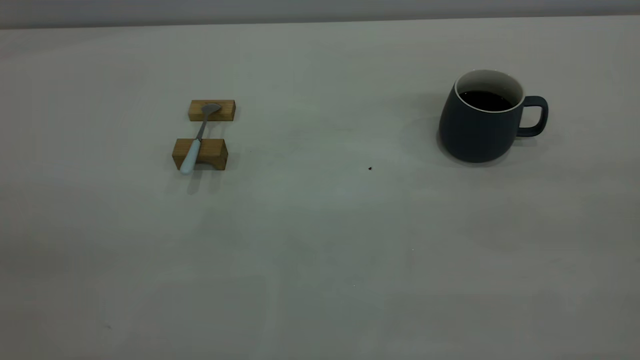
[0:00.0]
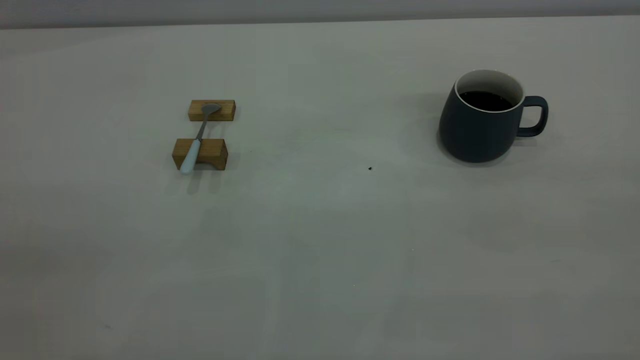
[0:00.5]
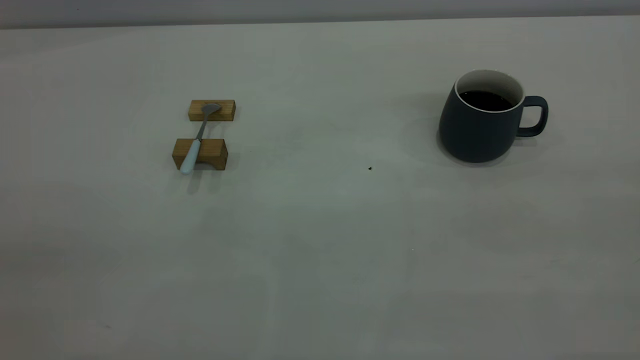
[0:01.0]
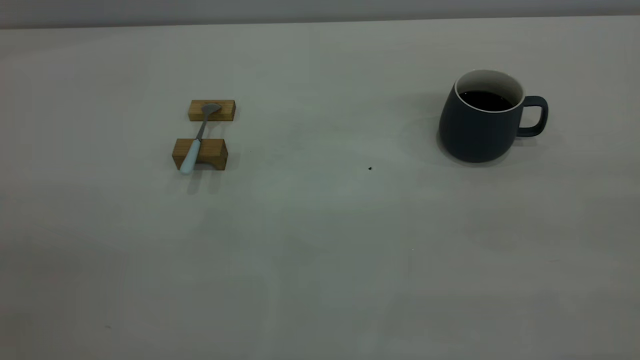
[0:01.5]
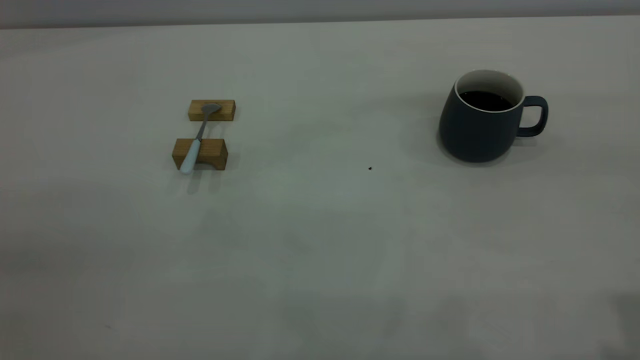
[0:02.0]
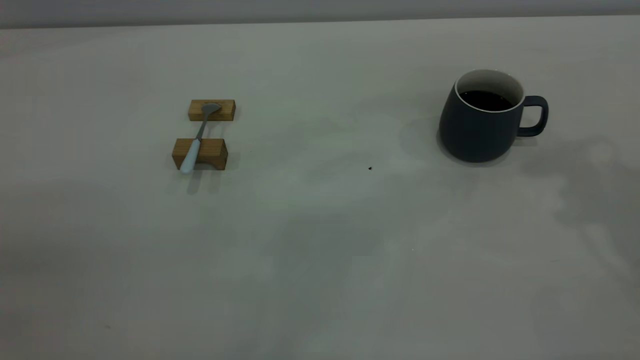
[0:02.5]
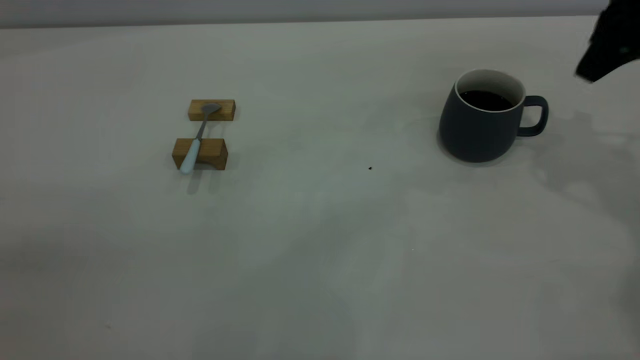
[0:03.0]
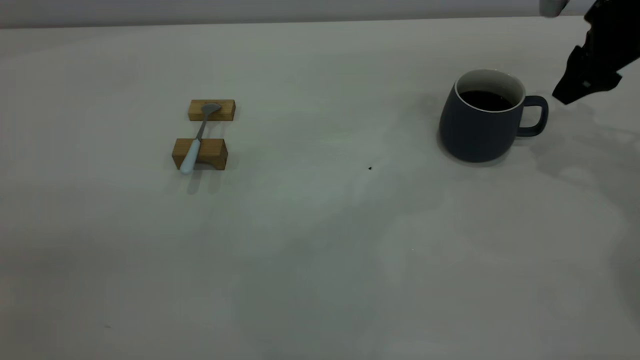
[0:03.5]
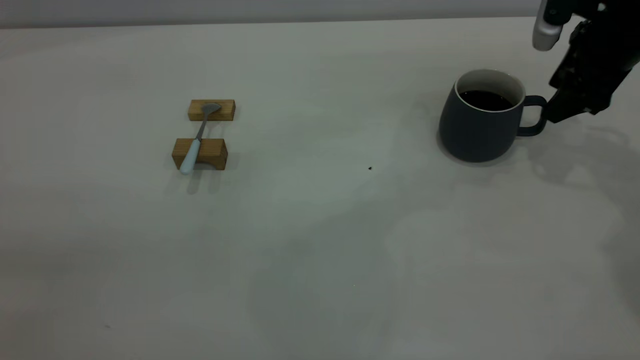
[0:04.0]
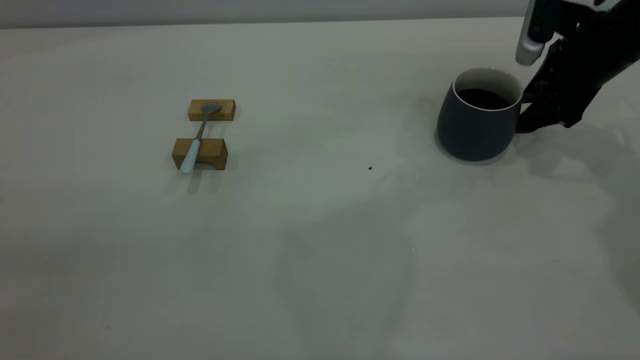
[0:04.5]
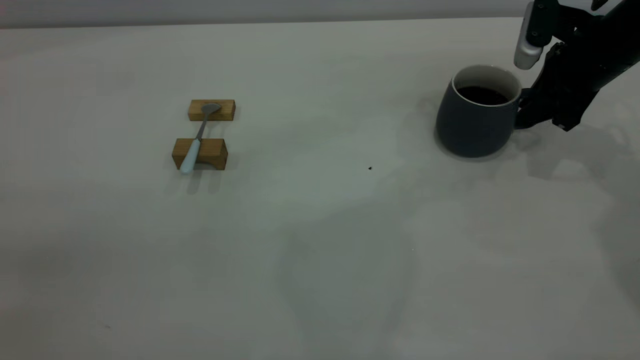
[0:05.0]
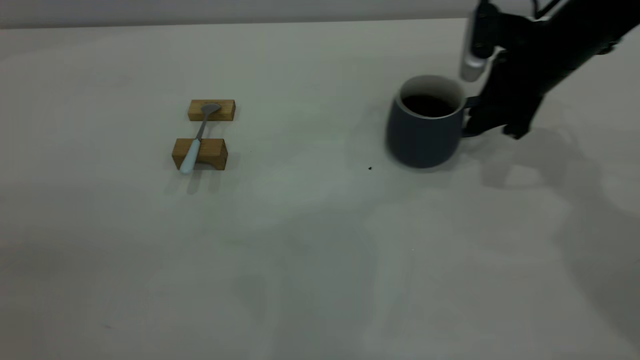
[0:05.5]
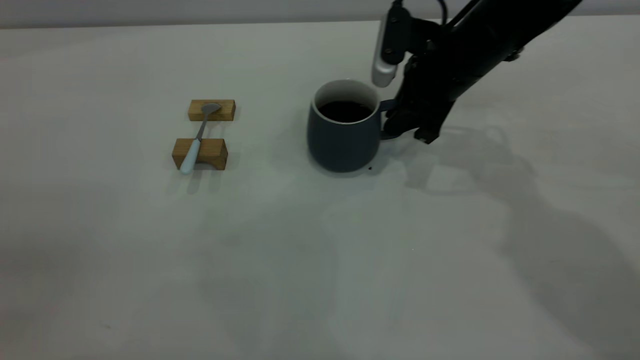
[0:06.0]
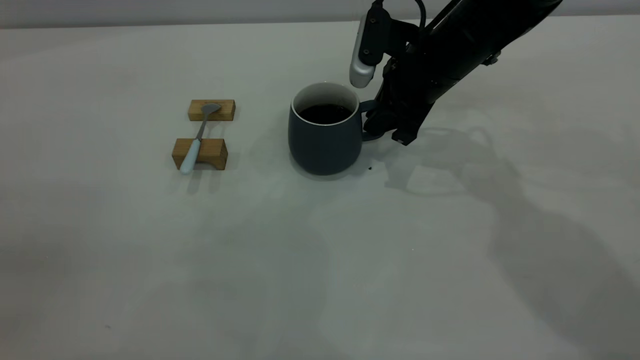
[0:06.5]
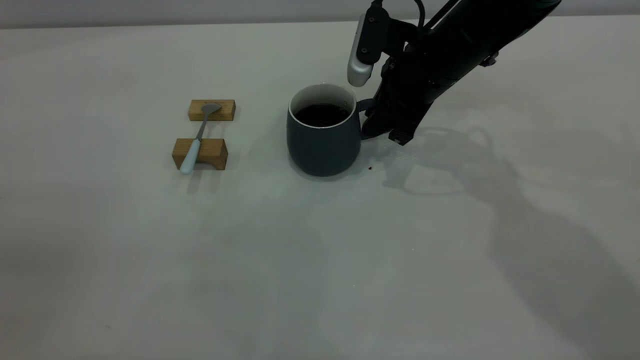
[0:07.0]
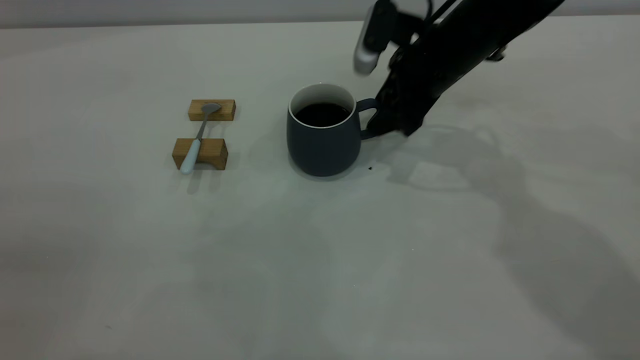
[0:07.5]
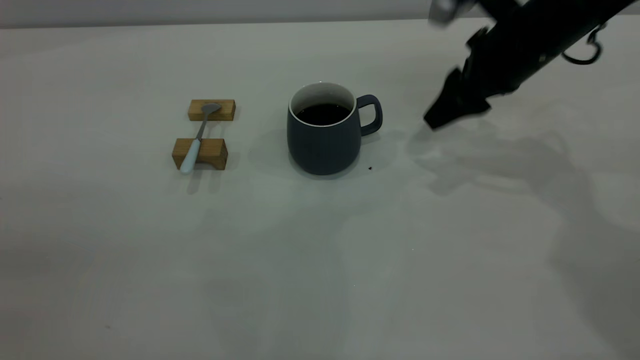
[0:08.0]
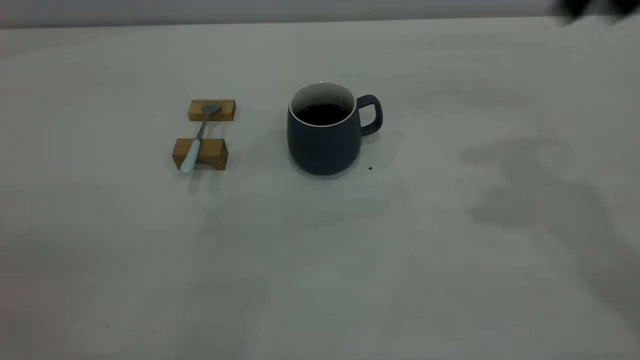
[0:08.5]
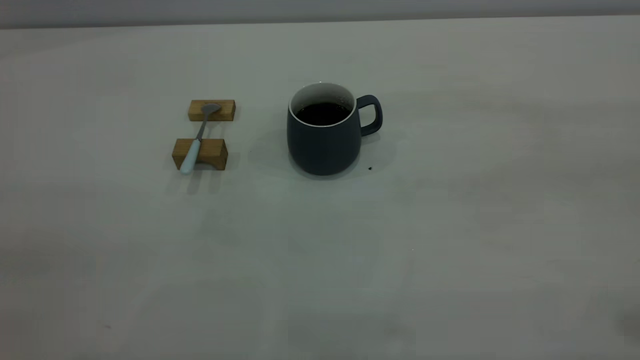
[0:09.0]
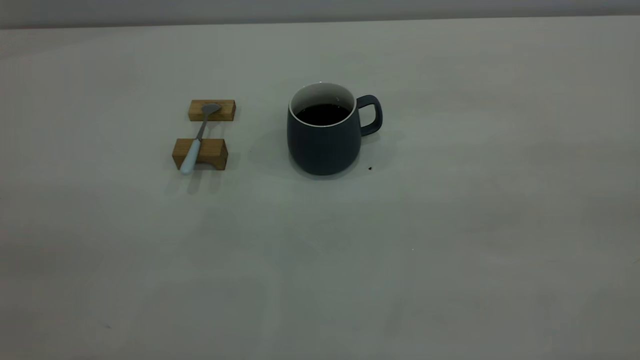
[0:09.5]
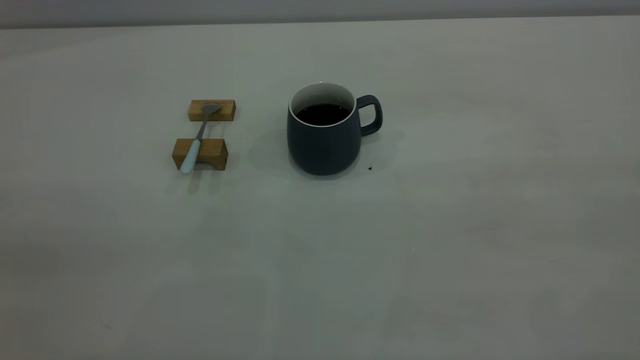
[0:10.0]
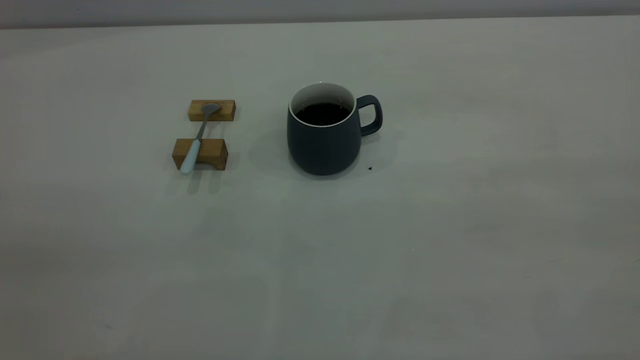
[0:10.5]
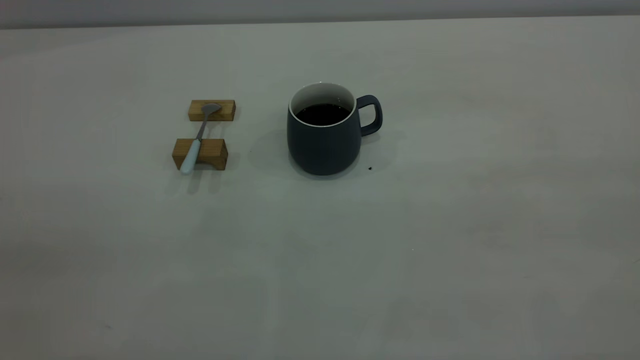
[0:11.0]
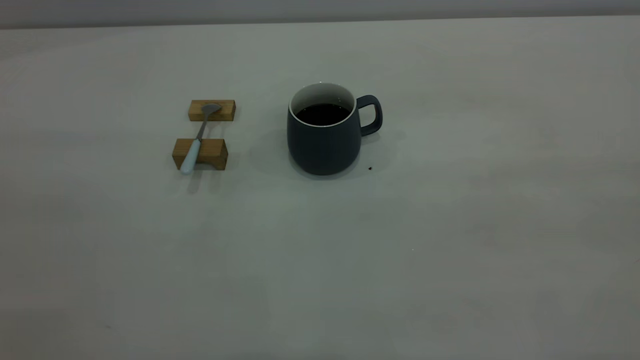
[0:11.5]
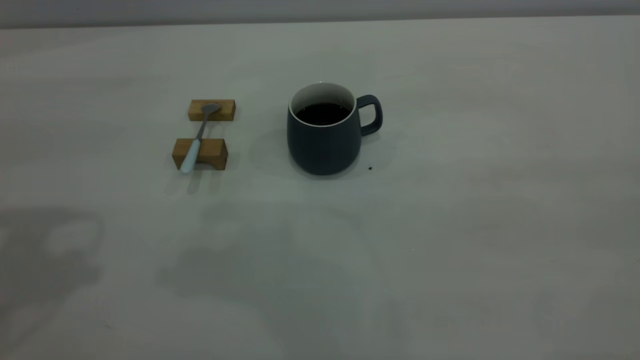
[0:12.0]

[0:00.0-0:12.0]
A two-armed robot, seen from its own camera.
Step, 0:00.0 to 0:07.5: Move the cup with coffee to the center of view.
0:02.0 to 0:04.0: The right gripper shifts roughly 35 cm forward and downward.
0:04.0 to 0:06.0: The right gripper heads to the left, covering about 15 cm, and closes up.
0:06.0 to 0:08.0: The right gripper goes about 5 cm to the right, and opens.
0:08.0 to 0:10.0: The right gripper moves backward and upward, roughly 50 cm.

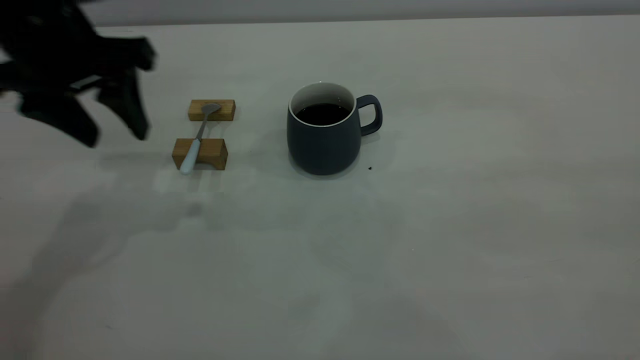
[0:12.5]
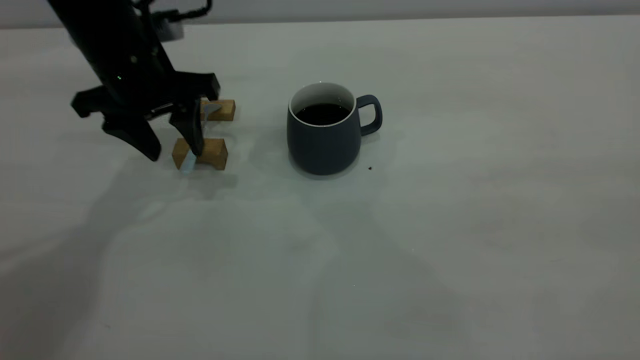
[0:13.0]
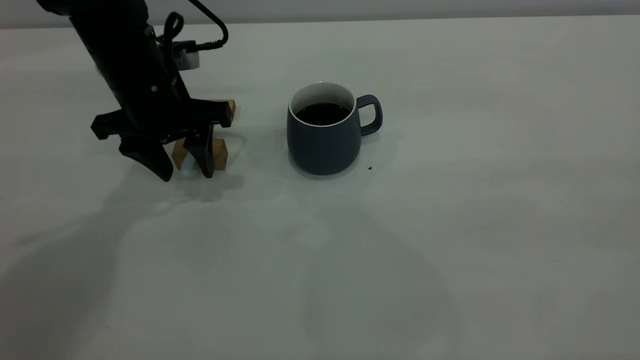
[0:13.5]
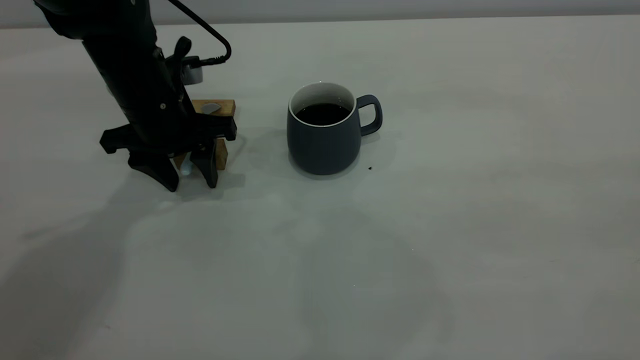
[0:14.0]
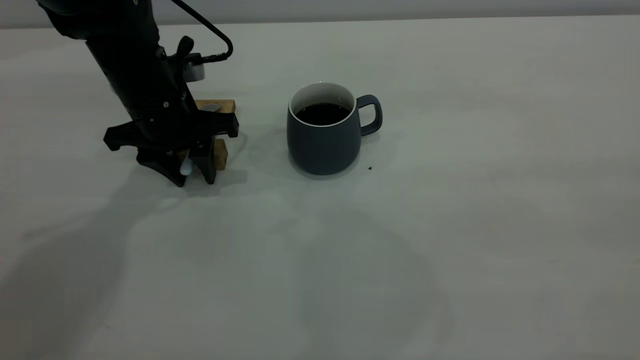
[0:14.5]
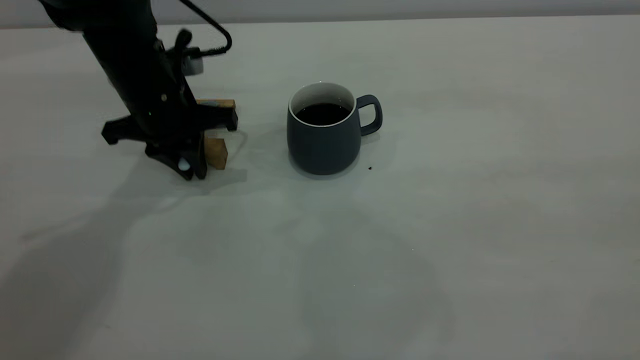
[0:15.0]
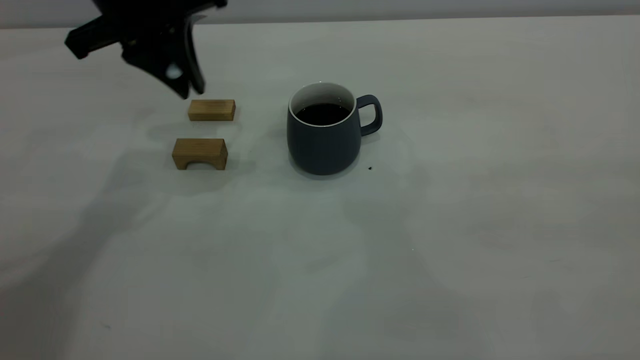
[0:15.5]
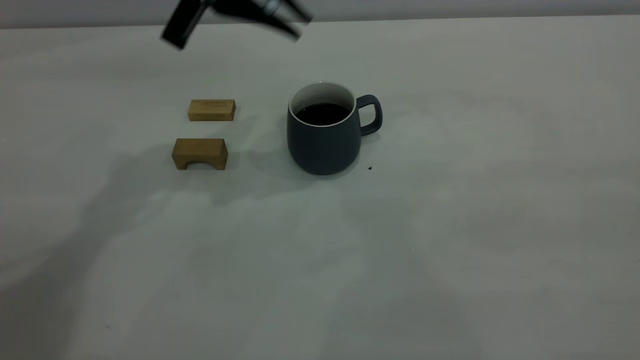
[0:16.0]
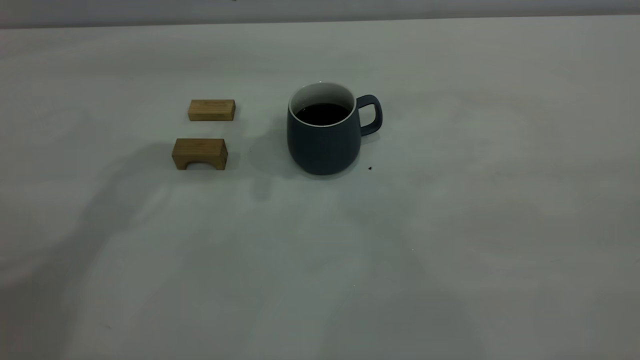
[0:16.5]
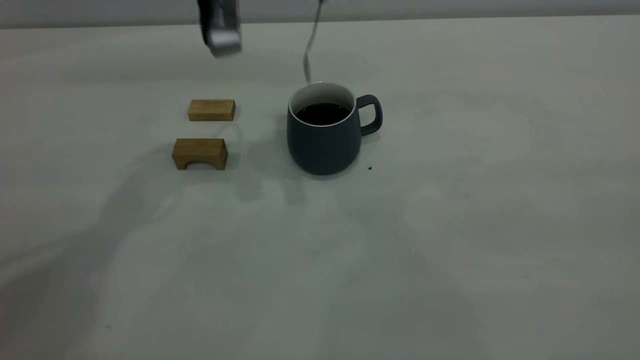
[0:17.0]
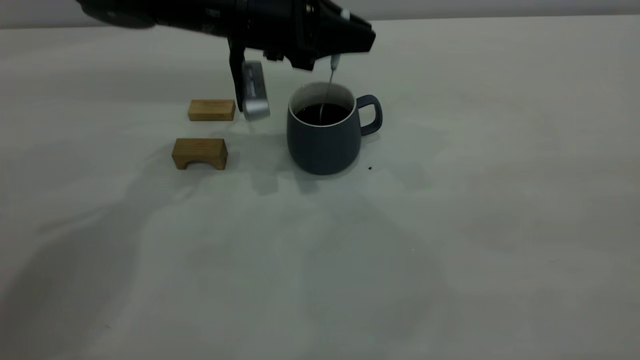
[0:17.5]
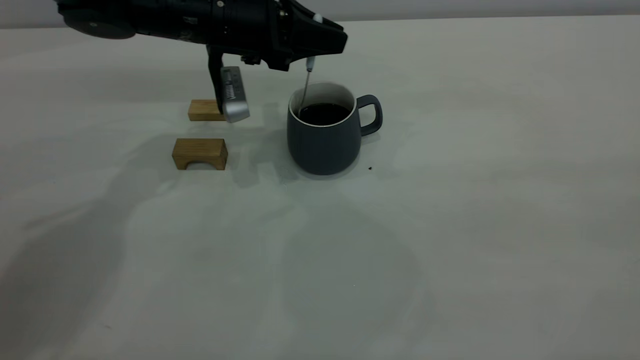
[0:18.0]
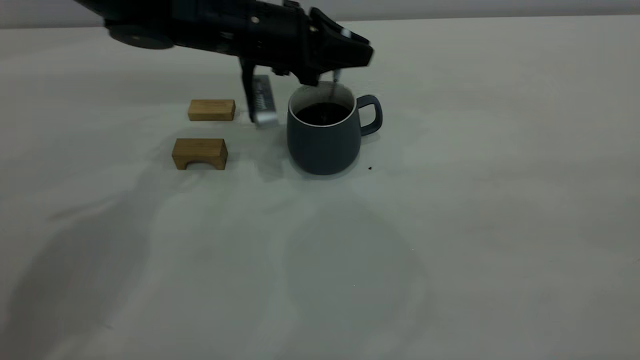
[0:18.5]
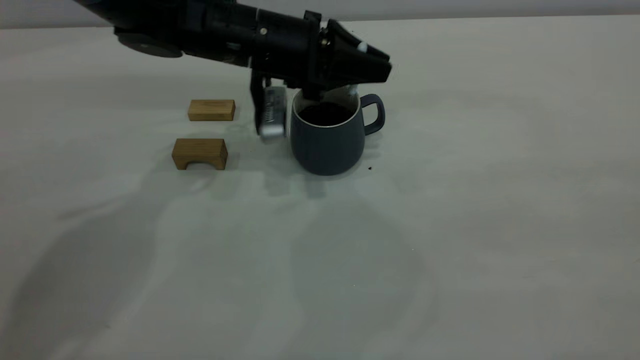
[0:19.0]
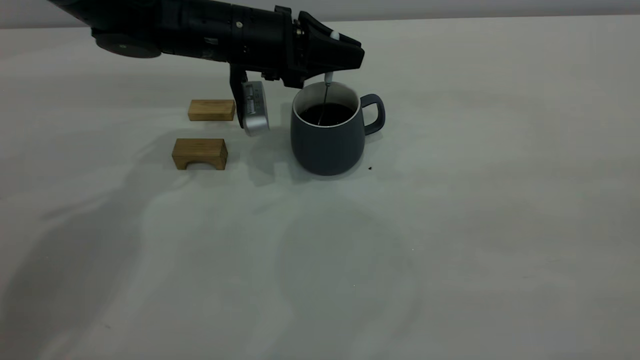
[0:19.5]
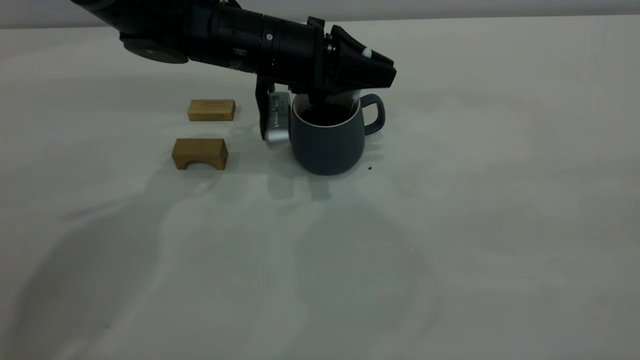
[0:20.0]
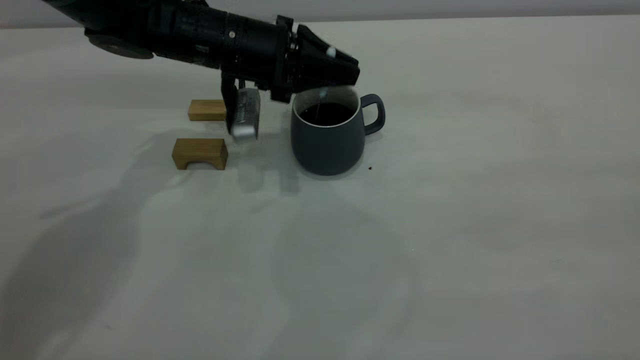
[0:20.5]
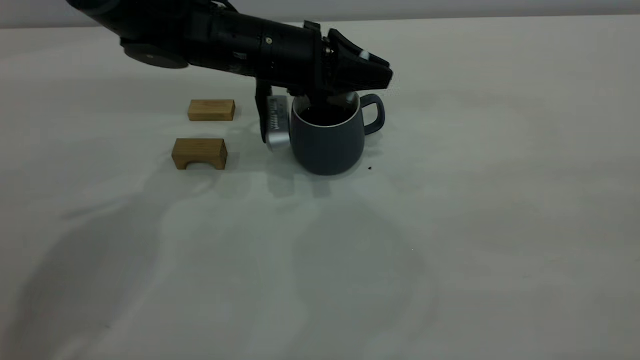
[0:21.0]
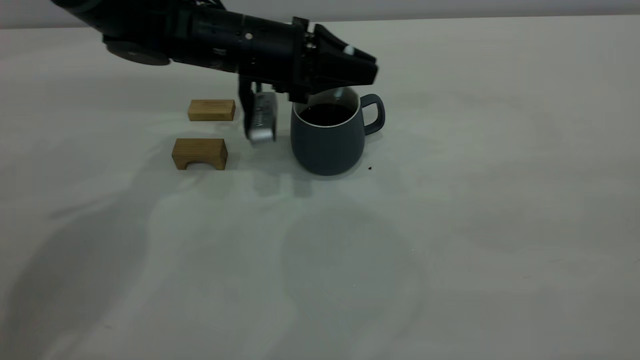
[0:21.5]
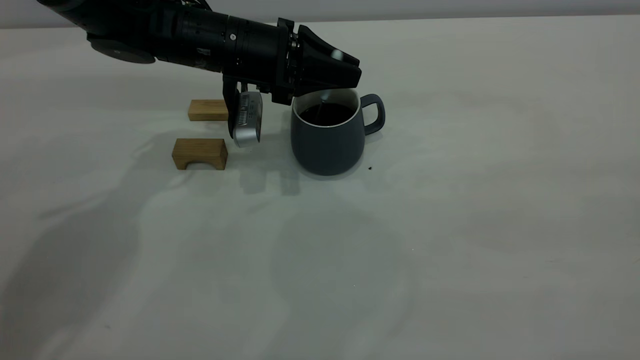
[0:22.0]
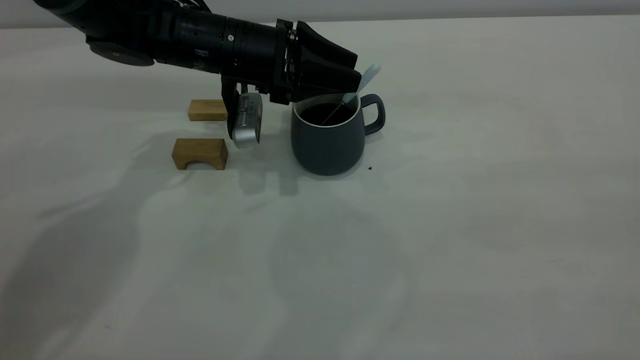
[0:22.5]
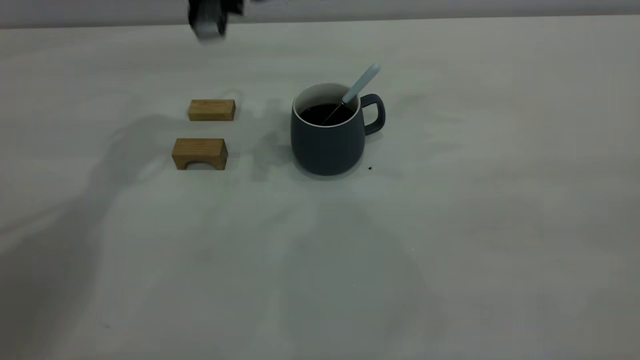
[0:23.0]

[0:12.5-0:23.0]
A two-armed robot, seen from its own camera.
Step, 0:12.5 to 0:15.0: Pick up the spoon.
Step, 0:15.5 to 0:22.5: Stir the coffee in the cup.
0:12.5 to 0:14.5: The left gripper travels downward and forward by approximately 15 cm, and closes its fingers.
0:14.5 to 0:16.5: The left gripper goes roughly 20 cm upward, and closes.
0:16.5 to 0:19.0: The left gripper heads downward, covering approximately 15 cm.
0:19.0 to 0:21.0: The grippers move only a little.
0:21.0 to 0:23.0: The left gripper moves upward and to the left, about 15 cm, and opens its fingers.
